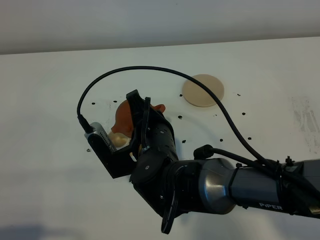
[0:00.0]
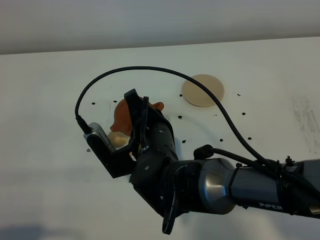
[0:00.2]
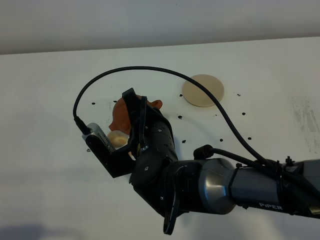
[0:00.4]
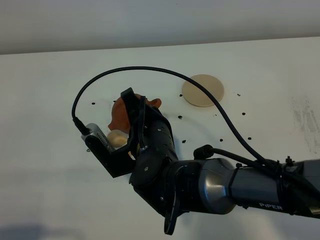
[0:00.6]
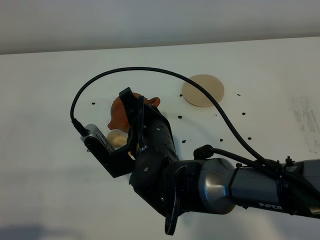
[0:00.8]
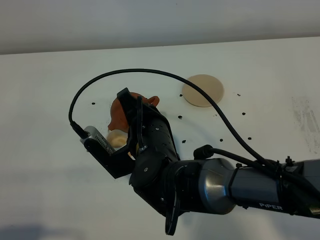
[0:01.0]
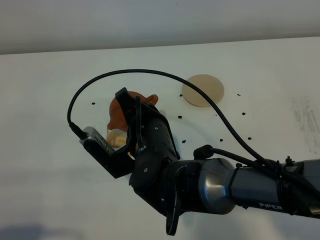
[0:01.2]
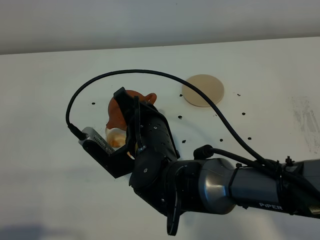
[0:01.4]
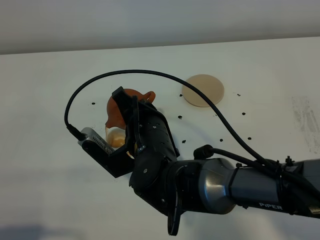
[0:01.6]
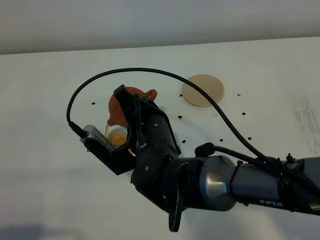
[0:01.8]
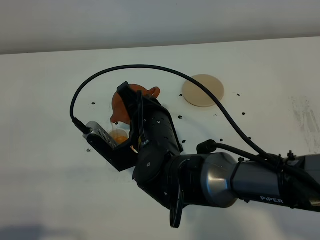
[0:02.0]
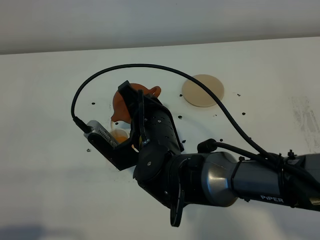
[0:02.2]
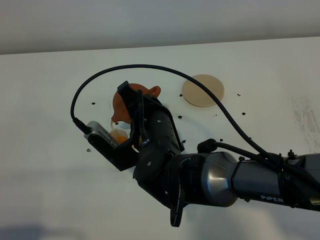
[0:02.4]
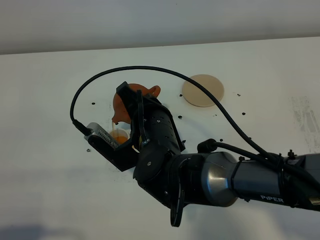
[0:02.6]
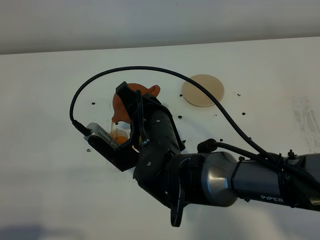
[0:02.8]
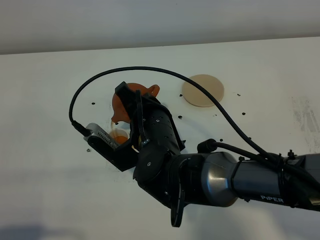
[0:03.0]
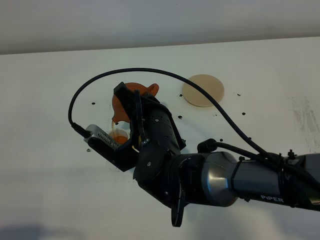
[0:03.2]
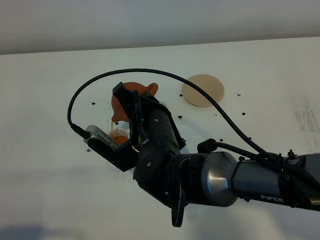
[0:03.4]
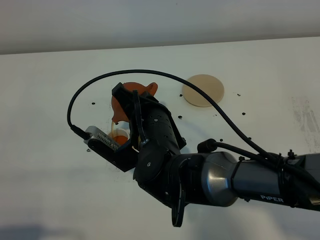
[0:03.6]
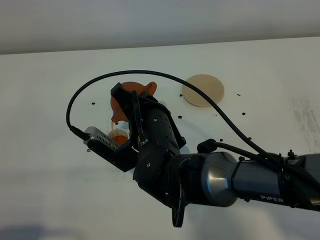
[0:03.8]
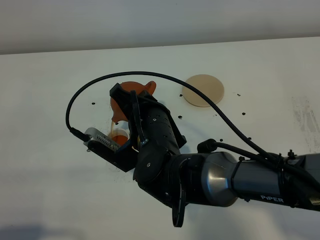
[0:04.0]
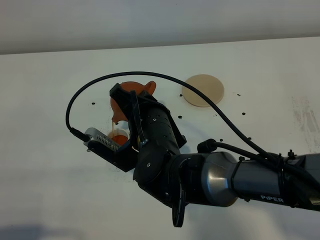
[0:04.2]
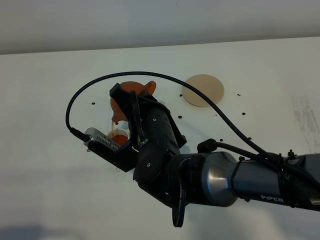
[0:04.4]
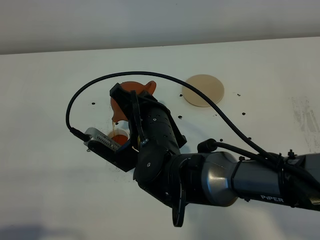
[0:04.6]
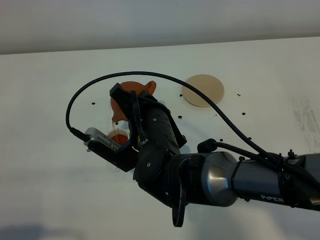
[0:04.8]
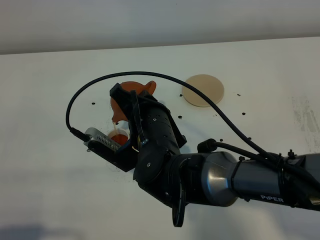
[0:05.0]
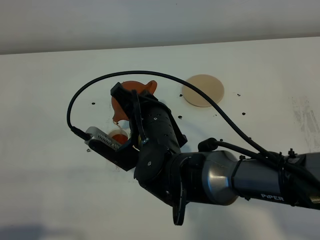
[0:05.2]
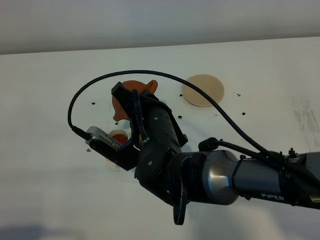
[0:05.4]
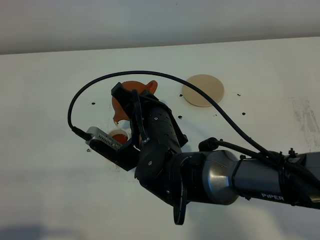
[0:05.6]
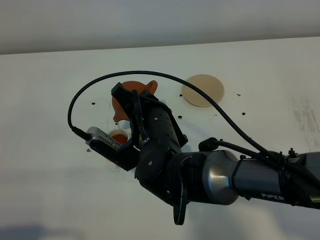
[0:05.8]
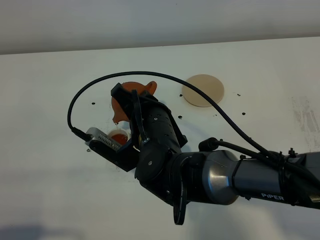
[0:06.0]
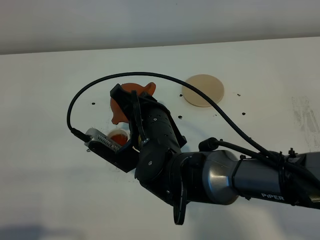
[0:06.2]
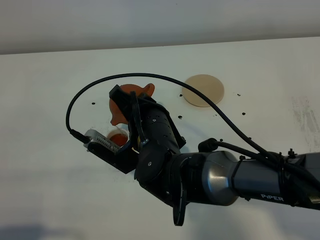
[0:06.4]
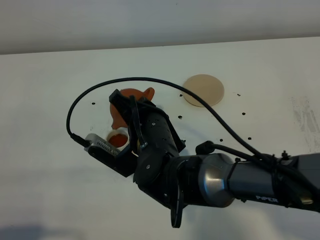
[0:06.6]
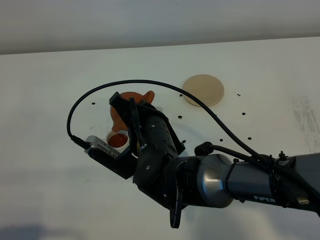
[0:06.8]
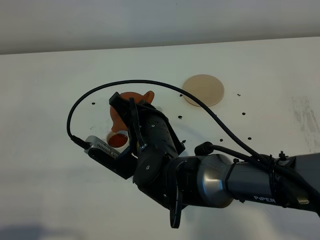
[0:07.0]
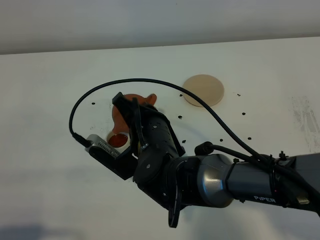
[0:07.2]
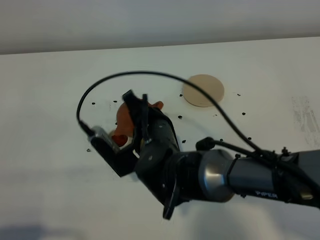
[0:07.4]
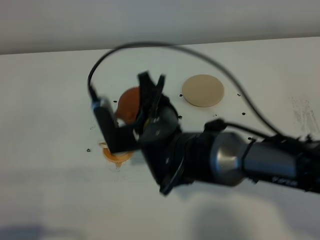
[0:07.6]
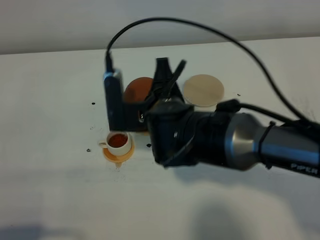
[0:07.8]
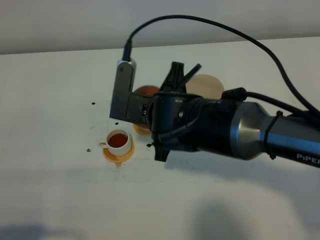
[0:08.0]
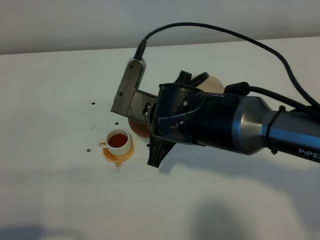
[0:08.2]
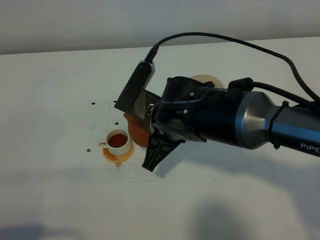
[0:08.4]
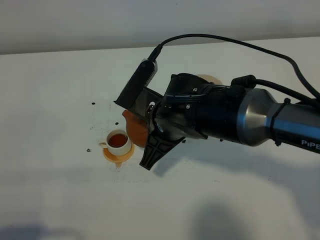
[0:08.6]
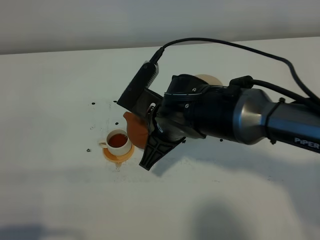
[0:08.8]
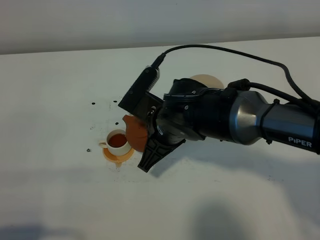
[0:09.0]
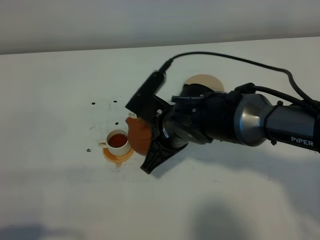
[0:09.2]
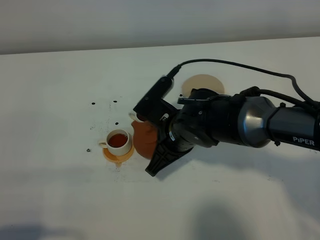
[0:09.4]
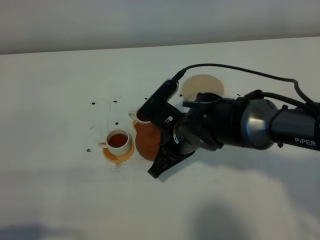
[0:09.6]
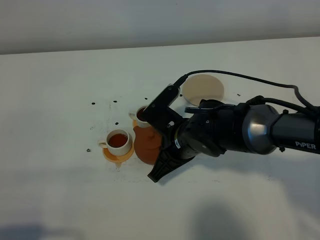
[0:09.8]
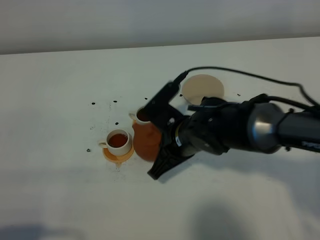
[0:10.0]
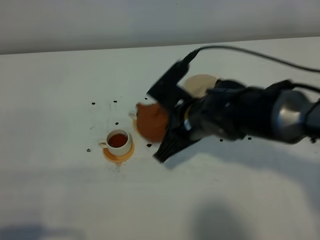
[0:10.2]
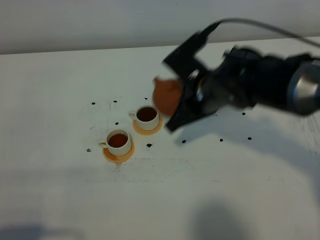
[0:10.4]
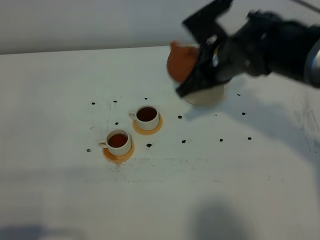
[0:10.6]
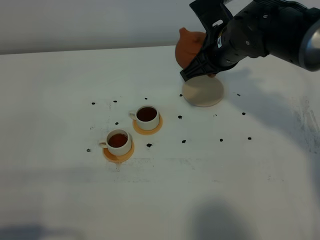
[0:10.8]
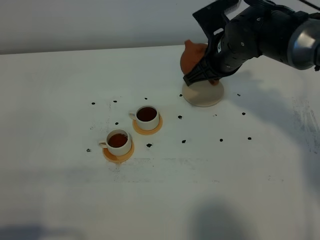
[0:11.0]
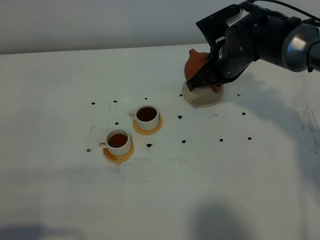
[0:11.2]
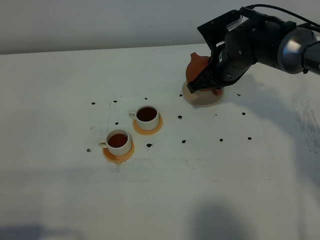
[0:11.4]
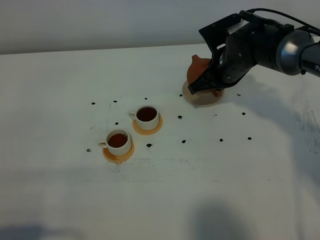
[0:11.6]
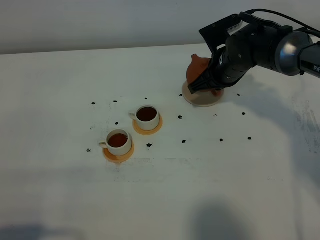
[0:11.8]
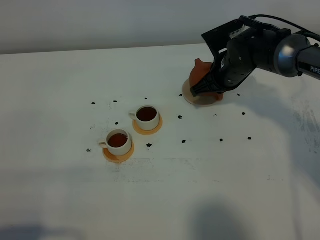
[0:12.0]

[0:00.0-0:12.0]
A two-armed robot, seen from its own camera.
Task of the whole recording: grasp the brown teapot and pour the tea into the two white teacups one by one, put the brown teapot back in its original place.
Step, 0:00.0 to 0:08.0: Pour tea into the teacup with the right gripper.
0:00.0 to 0:01.6: There are only small adjustments of the grippers.
0:01.6 to 0:03.0: Both grippers stay about where they are.
0:03.0 to 0:04.4: There are only small adjustments of the grippers.
0:04.4 to 0:06.0: The two grippers keep their place.
0:09.0 to 0:10.4: The right gripper is displaced to the right by some 5 cm.
0:10.4 to 0:12.0: The right gripper is displaced forward, downward and to the right by approximately 15 cm.

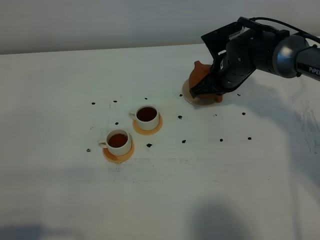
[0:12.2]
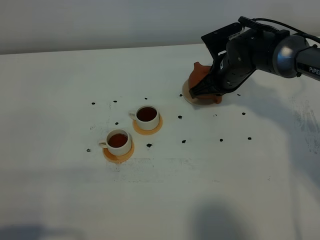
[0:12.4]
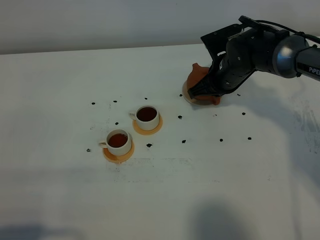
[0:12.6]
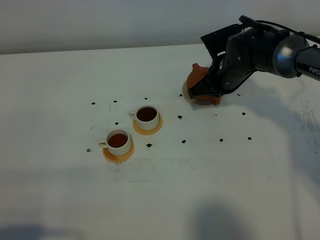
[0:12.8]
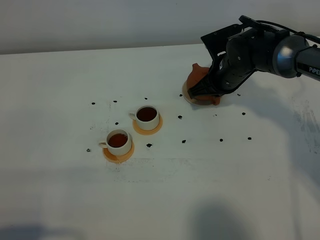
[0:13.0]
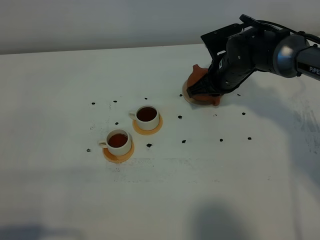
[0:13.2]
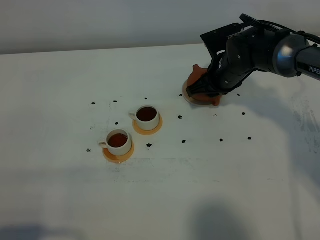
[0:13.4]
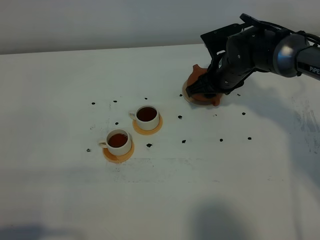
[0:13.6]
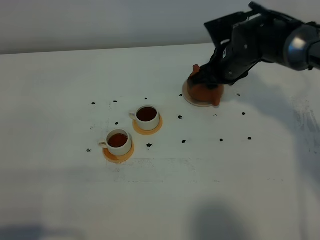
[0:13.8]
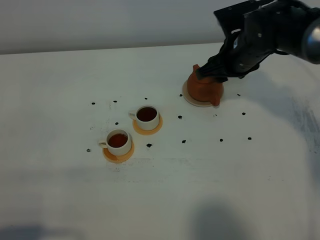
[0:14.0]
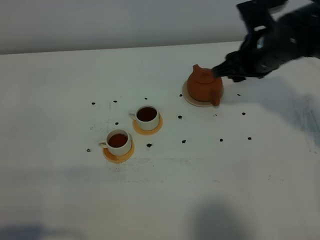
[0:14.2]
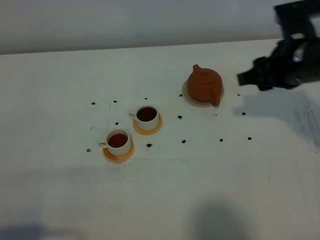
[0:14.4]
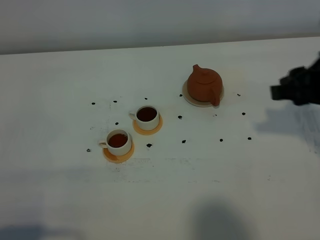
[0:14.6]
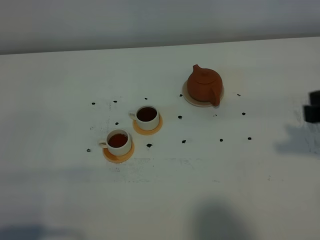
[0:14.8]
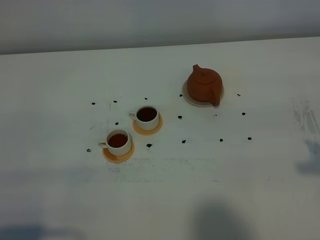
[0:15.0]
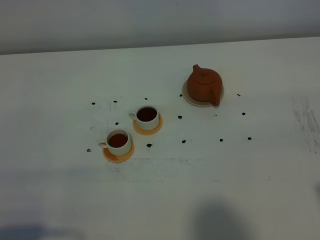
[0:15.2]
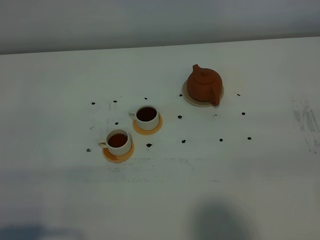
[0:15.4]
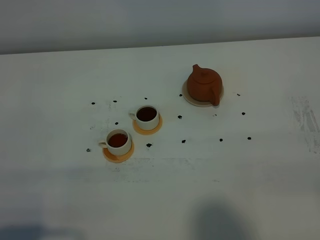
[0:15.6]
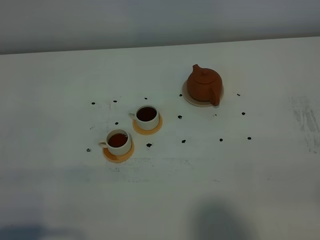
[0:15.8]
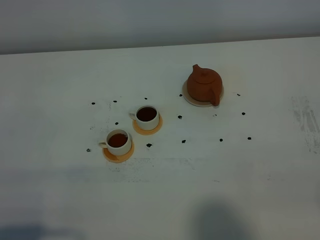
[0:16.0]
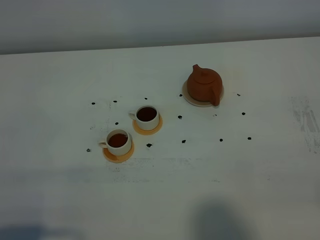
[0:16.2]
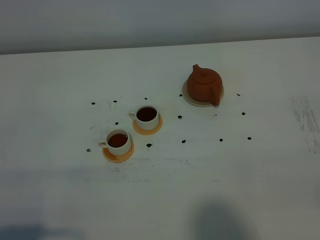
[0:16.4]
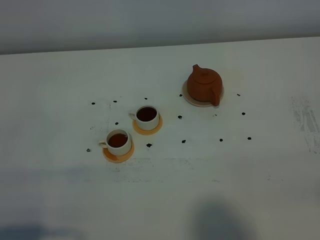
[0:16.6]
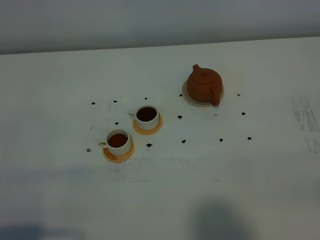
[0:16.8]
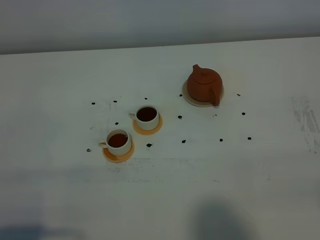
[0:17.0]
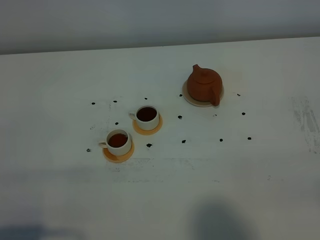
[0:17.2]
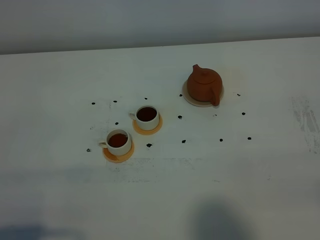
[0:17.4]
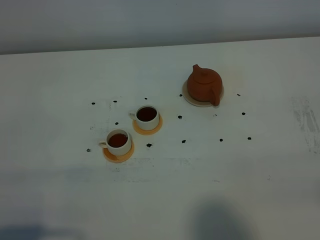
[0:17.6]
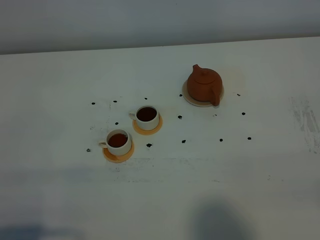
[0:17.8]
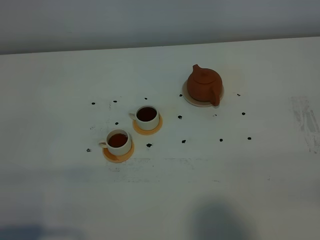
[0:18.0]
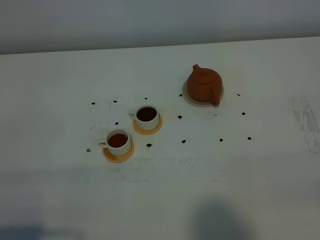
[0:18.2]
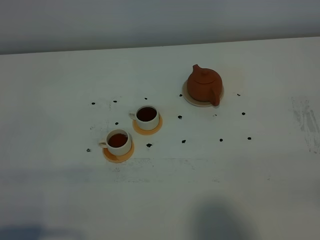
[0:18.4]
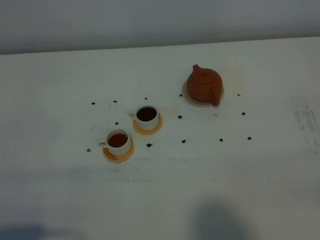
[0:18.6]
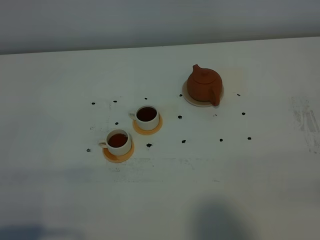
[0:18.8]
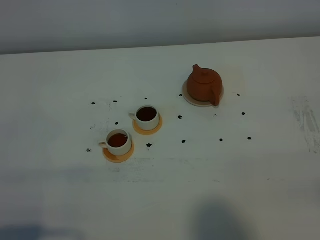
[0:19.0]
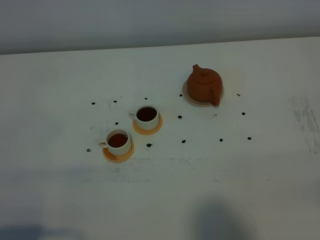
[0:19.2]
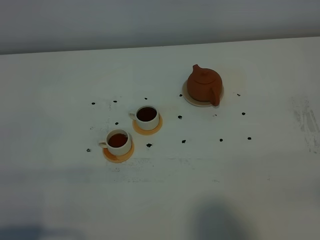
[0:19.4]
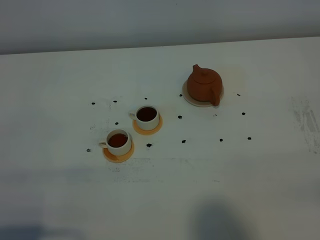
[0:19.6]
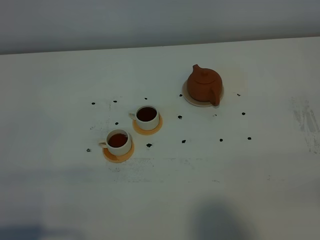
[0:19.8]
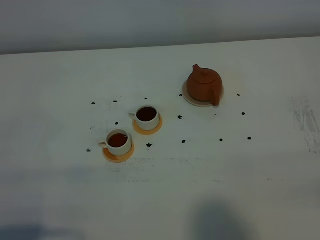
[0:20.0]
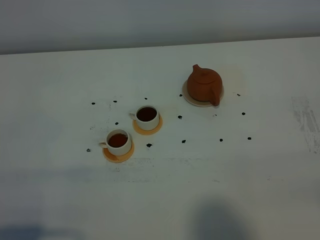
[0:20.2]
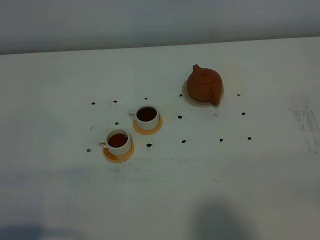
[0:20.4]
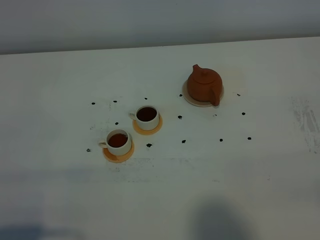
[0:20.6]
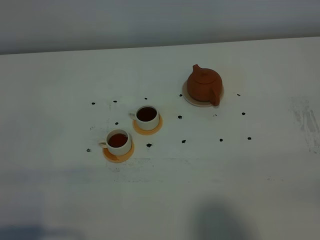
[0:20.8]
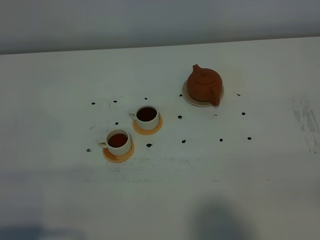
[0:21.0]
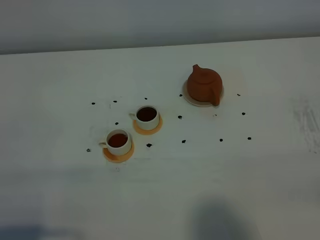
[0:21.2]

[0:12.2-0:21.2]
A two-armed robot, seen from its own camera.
Task of the whole recording: grasp the brown teapot and pour the tea into the two white teacups one by one, put the brown teapot back in its original place.
0:12.2 to 0:13.8: The right gripper opens up.
0:13.8 to 0:15.2: The right gripper goes approximately 35 cm backward and upward.
0:16.6 to 0:21.2: Both grippers stay about where they are.

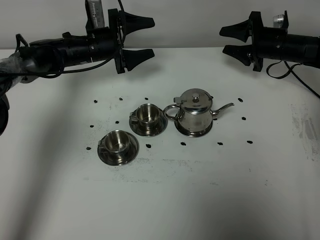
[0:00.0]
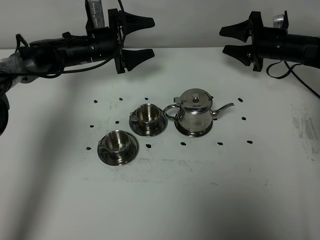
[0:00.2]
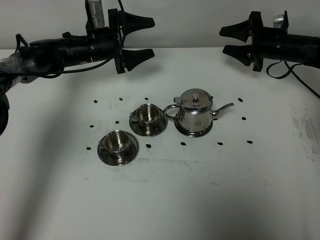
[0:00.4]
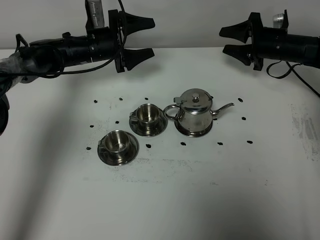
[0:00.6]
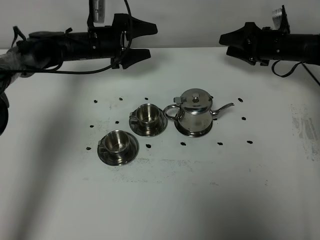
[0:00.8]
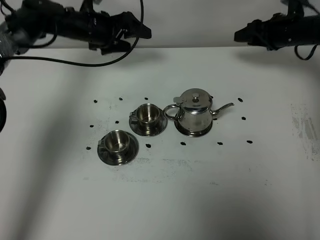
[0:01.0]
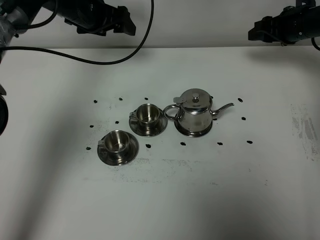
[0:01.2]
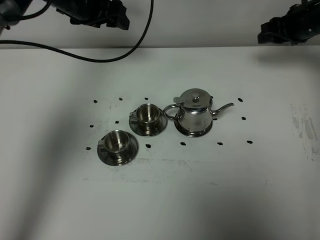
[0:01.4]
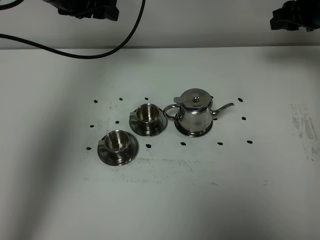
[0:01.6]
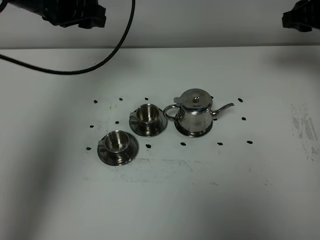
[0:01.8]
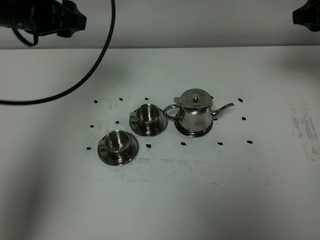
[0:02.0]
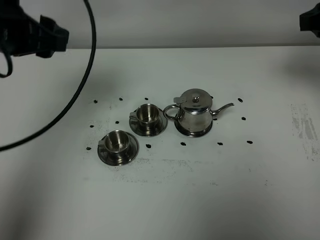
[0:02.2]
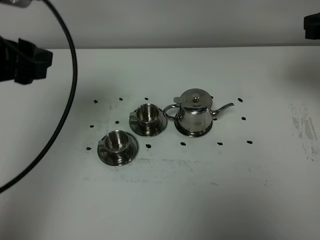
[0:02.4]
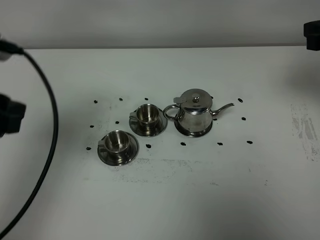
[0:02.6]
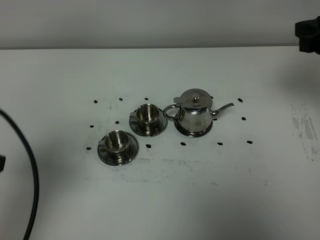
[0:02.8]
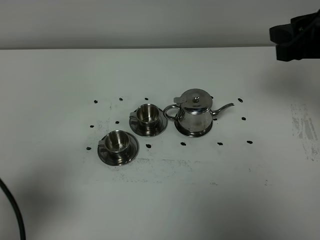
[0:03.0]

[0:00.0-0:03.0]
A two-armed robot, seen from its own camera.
Task of the whole recording: grasp the stainless steel teapot and pour the tea into the two stainless steel teacups one by one, put the stainless steel teapot back in its original place.
0:00.0 to 0:01.6: The left gripper shifts roughly 20 cm upward, and closes its fingers, while the right gripper travels upward and backward by about 15 cm.
0:01.6 to 0:03.0: The right gripper is displaced backward by about 15 cm. Meanwhile the left gripper goes about 40 cm backward.
